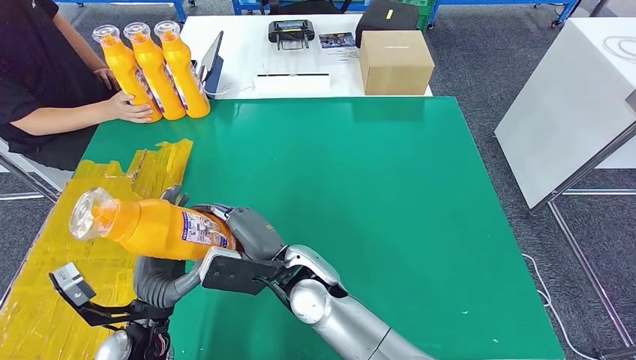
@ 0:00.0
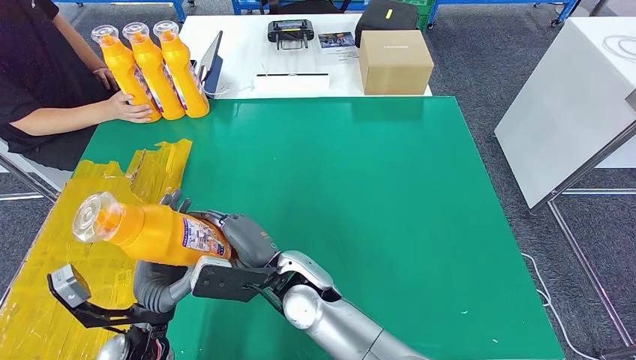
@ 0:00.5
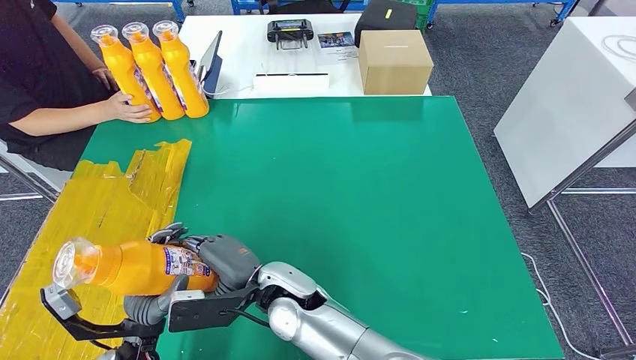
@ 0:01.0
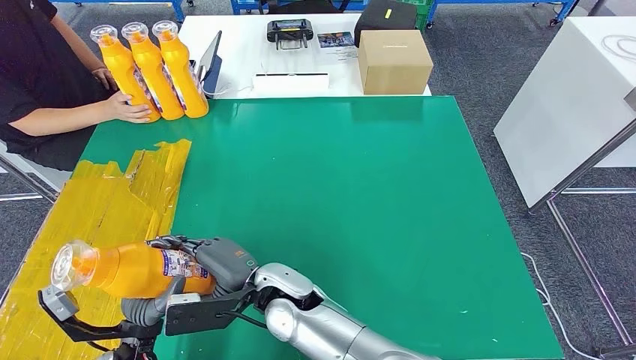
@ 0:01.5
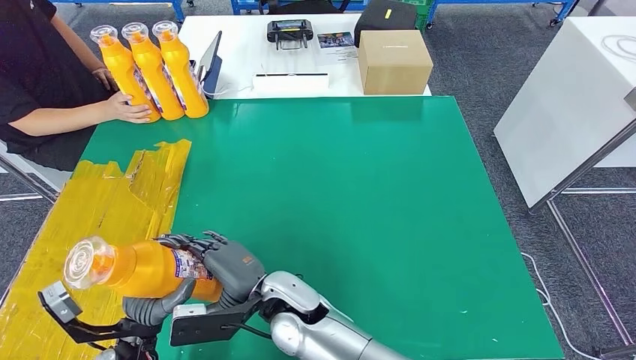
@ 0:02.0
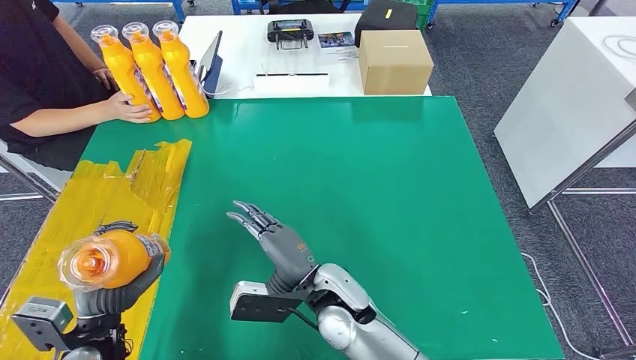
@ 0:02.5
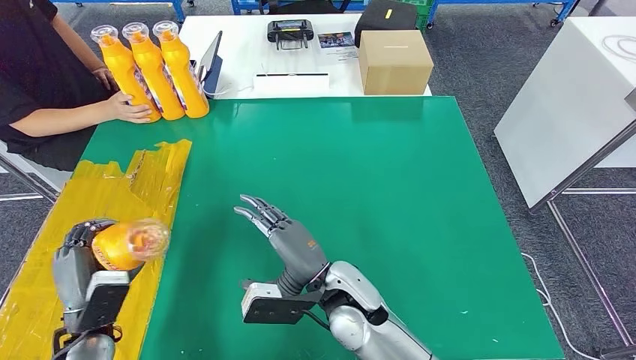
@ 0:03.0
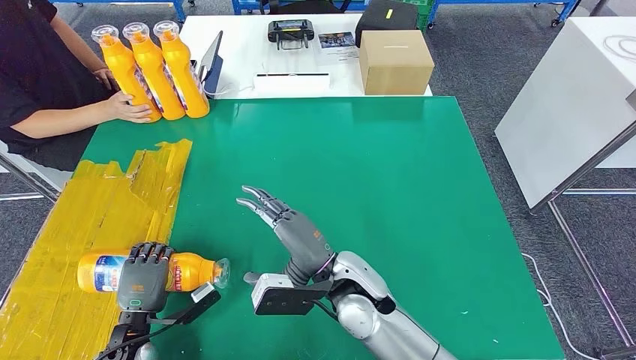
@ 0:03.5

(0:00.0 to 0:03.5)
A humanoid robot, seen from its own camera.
Step, 0:00.0 - 0:03.5: Flip the fast-moving consumer goods bottle to the front side.
0:00.0 - 0:02.0: The right hand changes place by about 5 cm.
0:02.0 - 0:03.5: The right hand travels to the right by some 10 cm; the left hand travels downward by roughly 5 cm.
